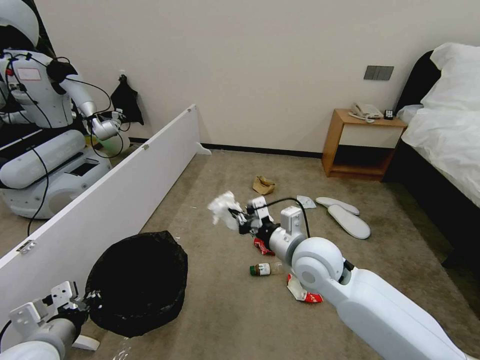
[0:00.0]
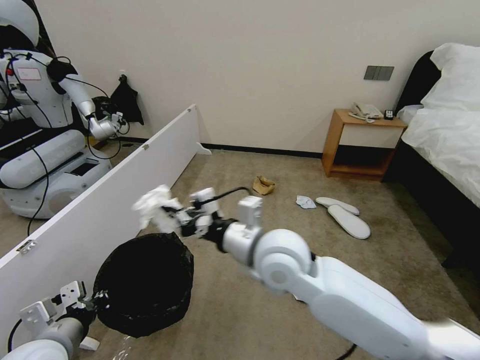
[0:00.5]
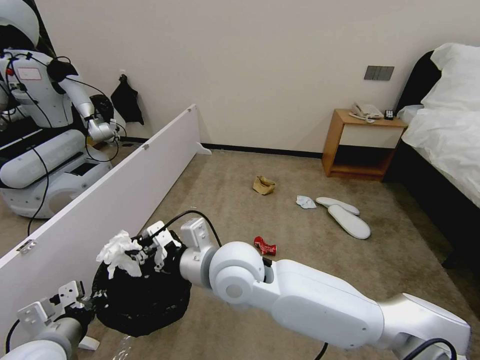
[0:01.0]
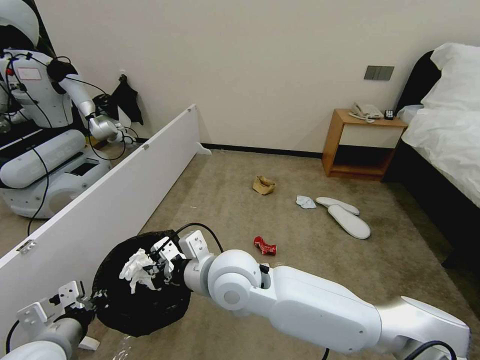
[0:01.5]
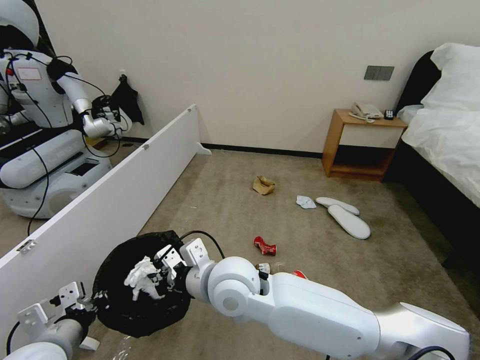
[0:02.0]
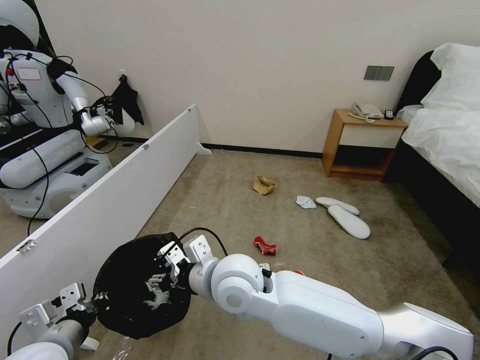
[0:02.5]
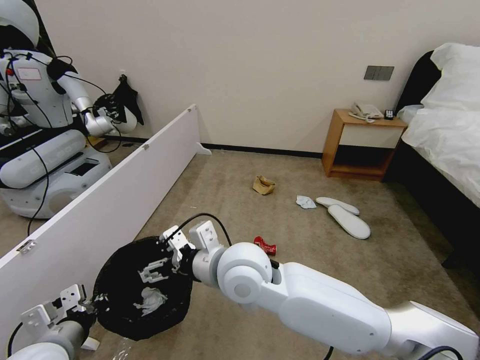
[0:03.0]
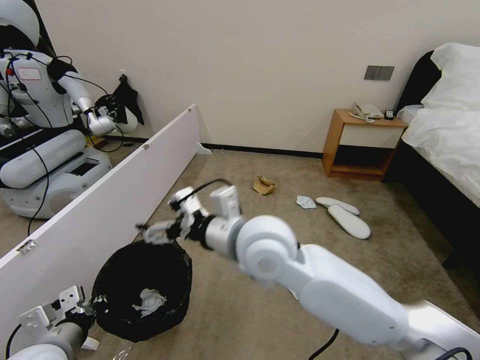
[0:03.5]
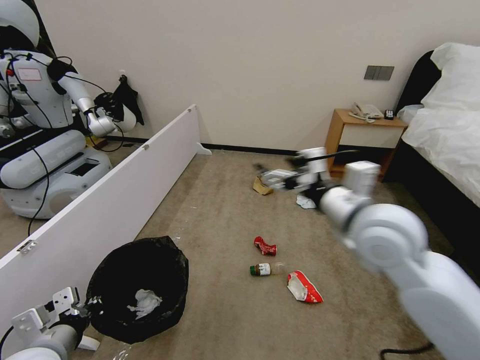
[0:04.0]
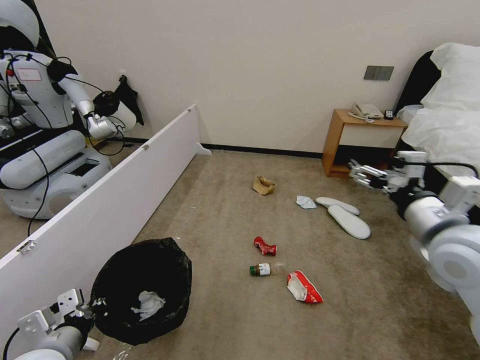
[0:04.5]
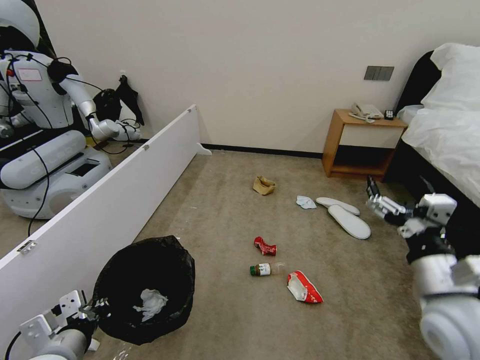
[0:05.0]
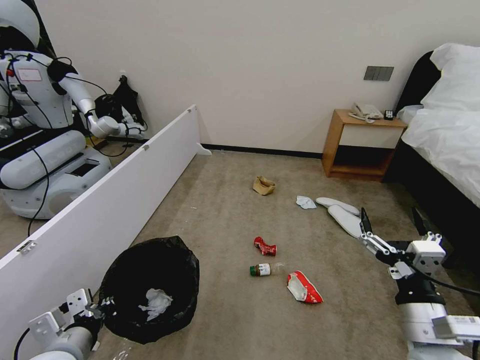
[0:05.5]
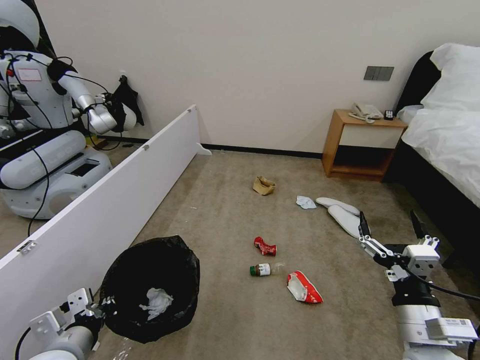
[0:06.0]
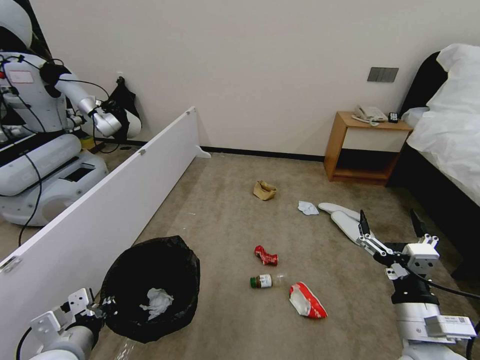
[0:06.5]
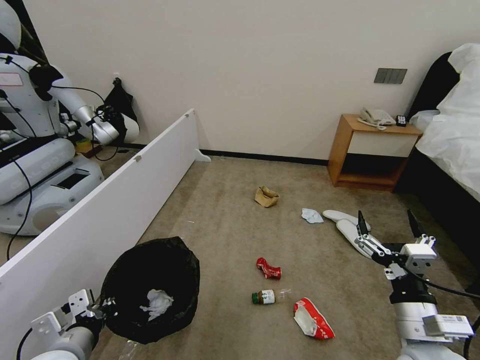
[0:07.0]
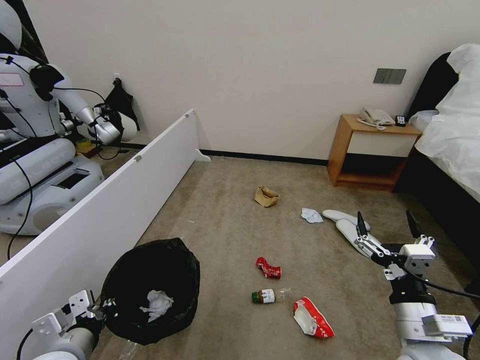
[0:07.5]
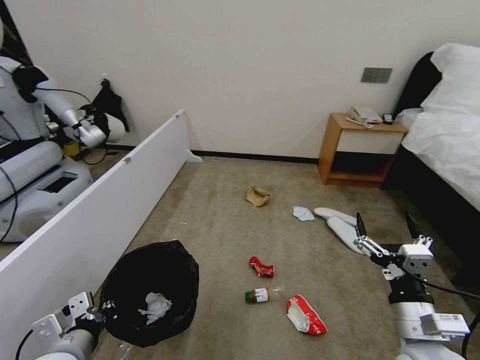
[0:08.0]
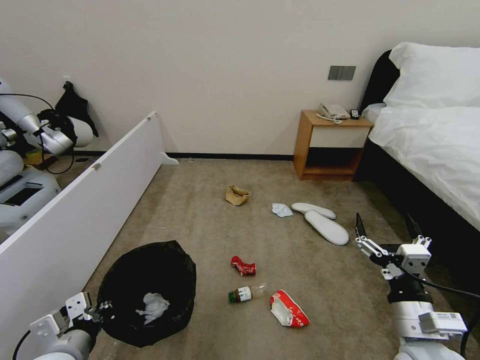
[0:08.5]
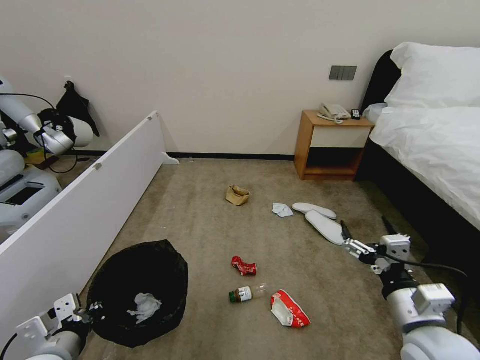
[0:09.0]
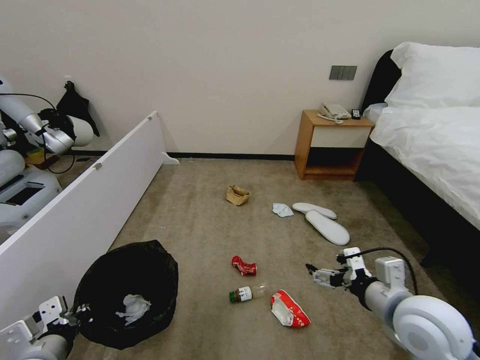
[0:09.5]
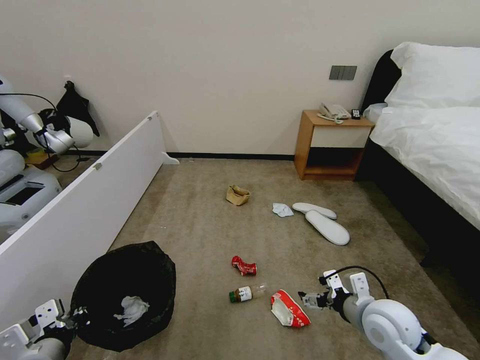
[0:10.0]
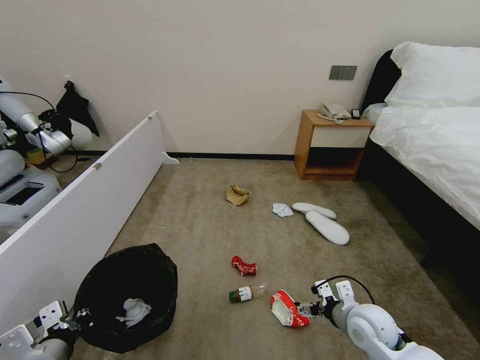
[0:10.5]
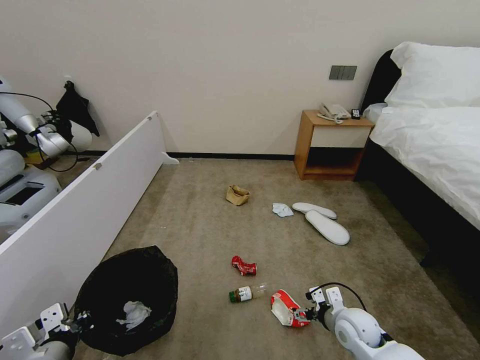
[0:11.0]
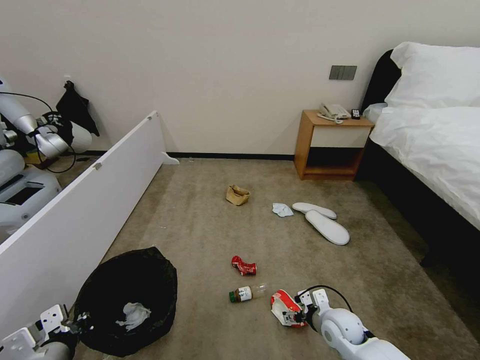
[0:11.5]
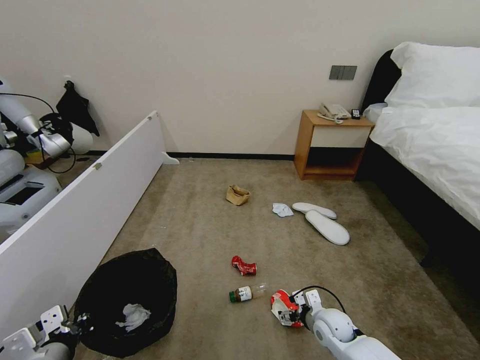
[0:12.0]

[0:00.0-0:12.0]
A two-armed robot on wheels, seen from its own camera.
Task of the whole recording: Pick up the trash bin, then pick up the garbage from the floor and place it into the trash bin.
0:00.0 to 0:02.0: The right gripper moves to the left, about 15 cm.
0:02.0 to 0:04.0: The right gripper shifts about 25 cm to the right and upward, and opens up.
0:04.0 to 0:06.0: The right gripper moves downward, backward and to the right, approximately 25 cm.
0:08.0 to 0:10.0: The right gripper heads forward, covering some 10 cm.
0:10.0 to 0:12.0: The right gripper heads downward, covering some 20 cm.

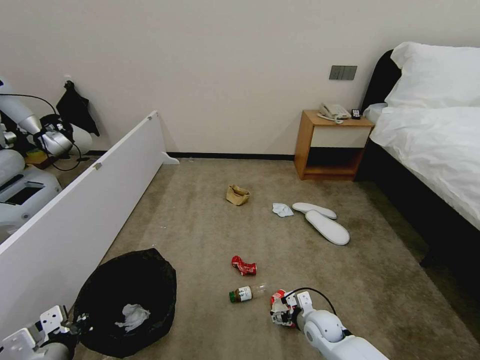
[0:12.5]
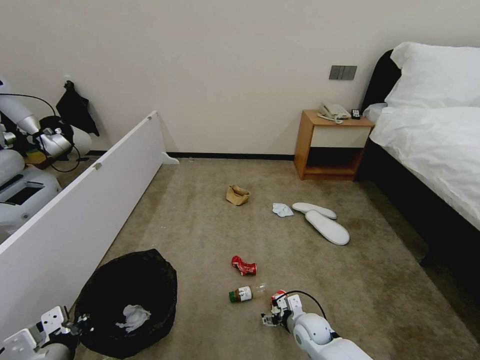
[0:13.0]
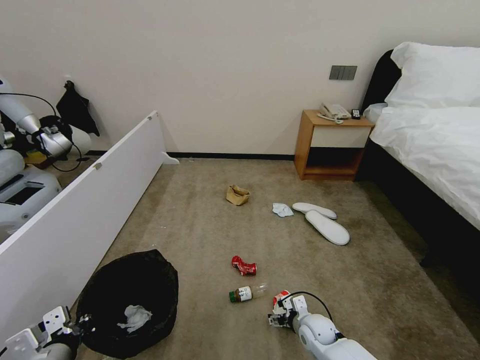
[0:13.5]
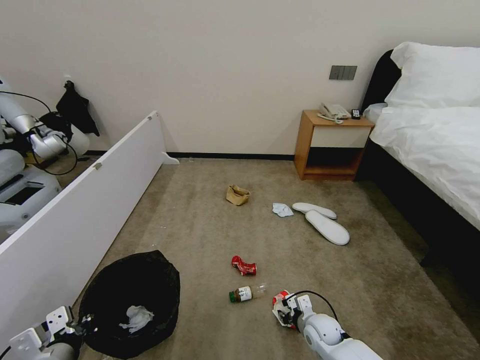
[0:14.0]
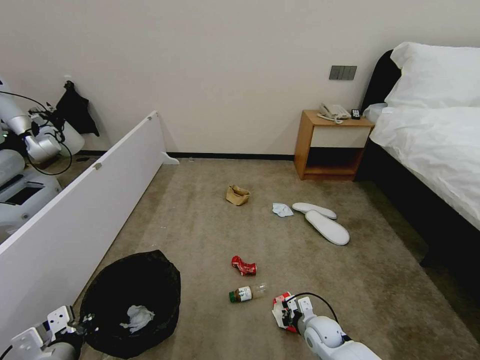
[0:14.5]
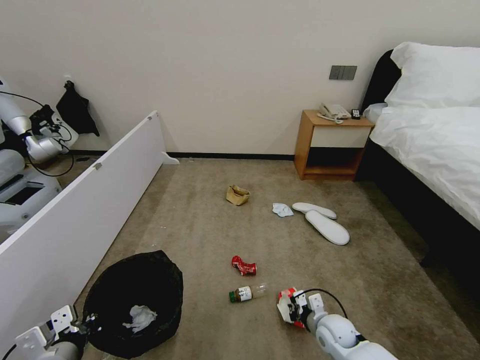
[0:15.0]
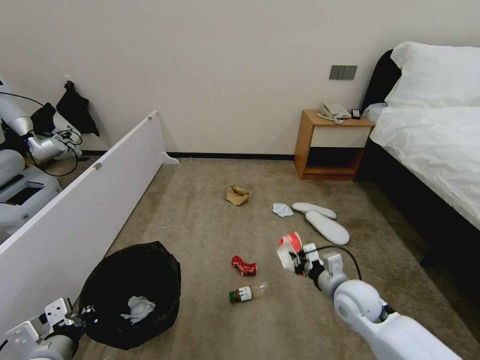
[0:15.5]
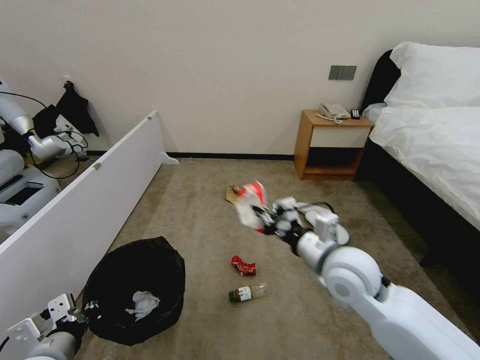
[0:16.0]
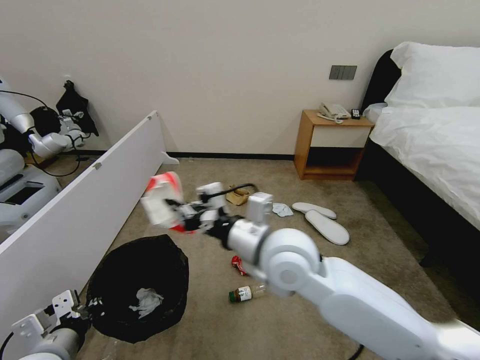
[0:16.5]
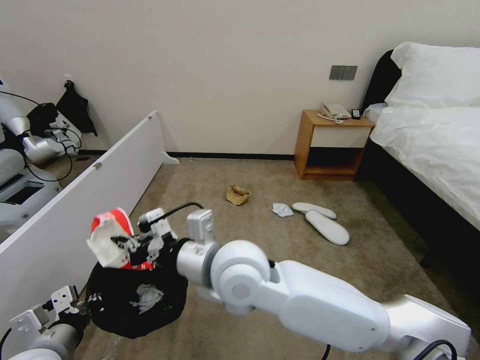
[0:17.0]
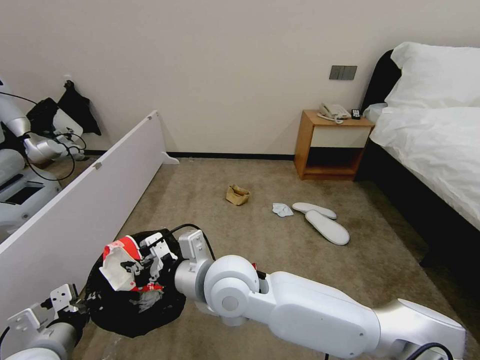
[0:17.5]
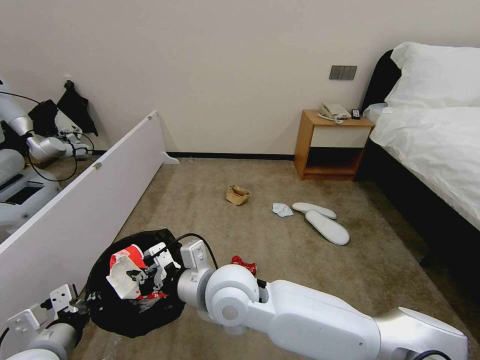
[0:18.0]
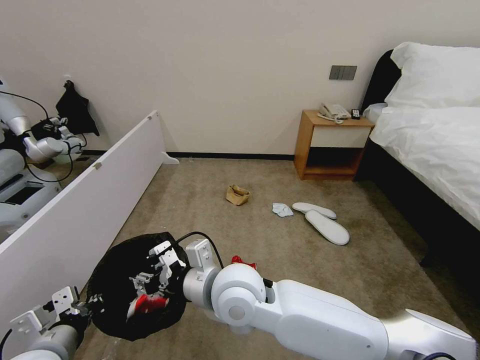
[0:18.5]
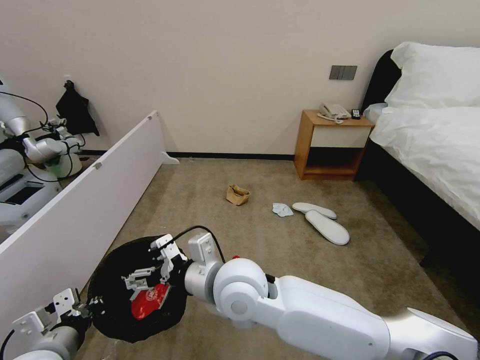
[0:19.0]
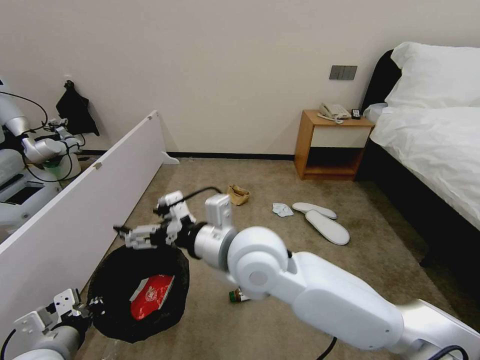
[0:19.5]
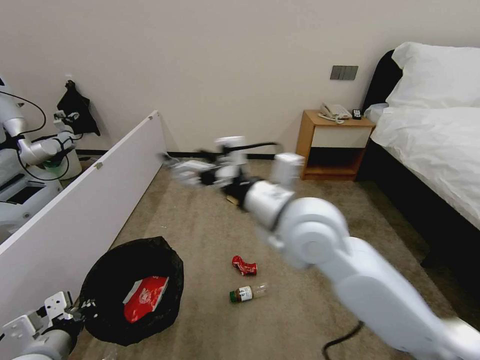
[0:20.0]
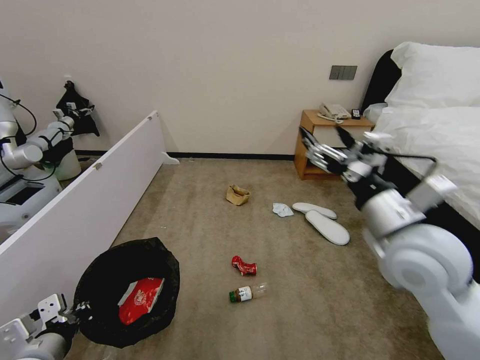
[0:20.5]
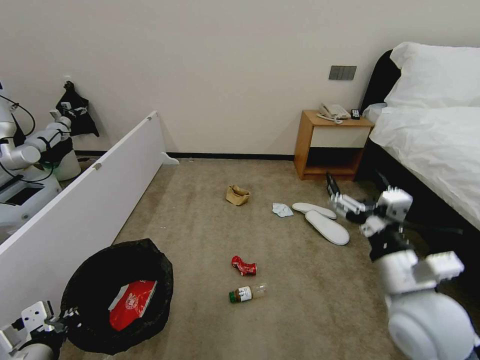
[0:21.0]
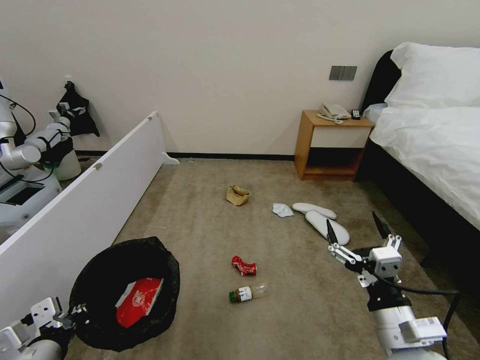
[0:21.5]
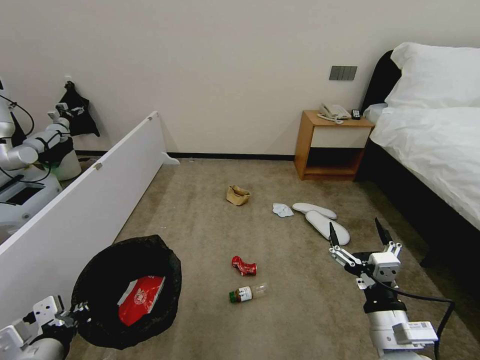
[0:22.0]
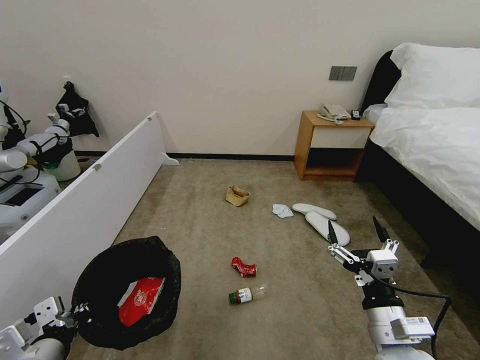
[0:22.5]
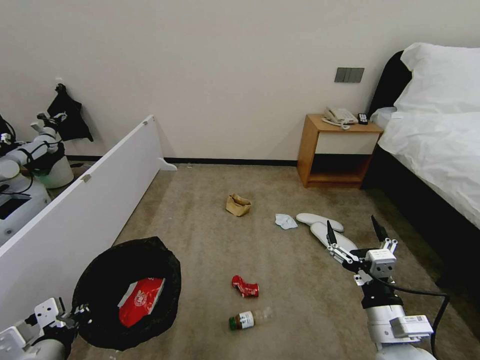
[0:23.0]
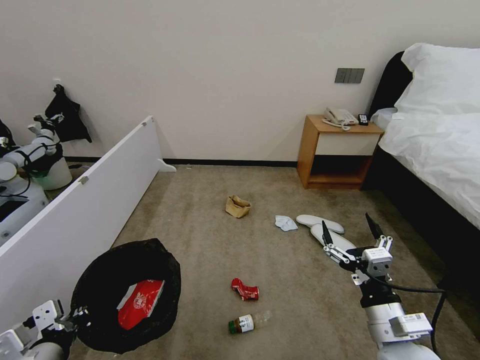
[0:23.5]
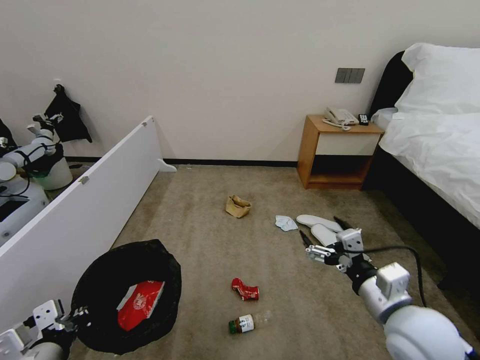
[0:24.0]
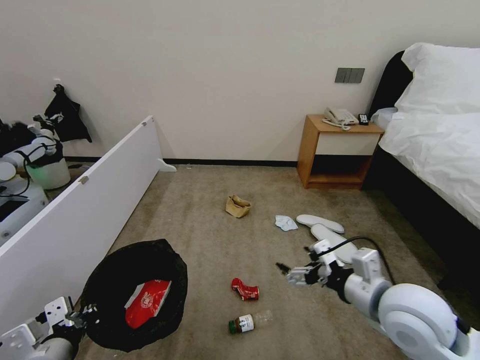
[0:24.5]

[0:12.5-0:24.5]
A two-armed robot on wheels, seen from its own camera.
Task of the whole recording: Pick up the trash bin, then pick up the garbage from the floor and place it into the trash bin.
0:12.5 to 0:14.5: The right gripper closes.
0:14.5 to 0:16.5: The right gripper shifts some 40 cm upward and to the left.
0:16.5 to 0:18.5: The right gripper heads to the left and downward, covering approximately 10 cm.
0:18.5 to 0:20.5: The right gripper moves to the right, roughly 25 cm, and opens its fingers.
0:20.5 to 0:22.5: The right gripper goes roughly 20 cm downward and backward.
0:22.5 to 0:24.5: The right gripper travels upward and forward by roughly 10 cm.

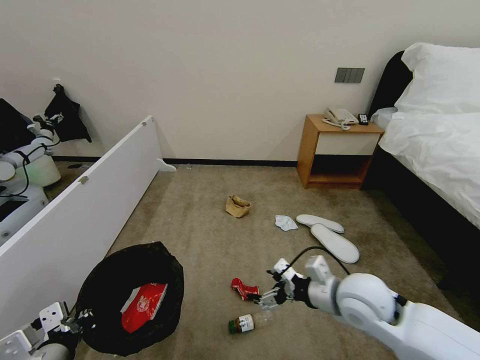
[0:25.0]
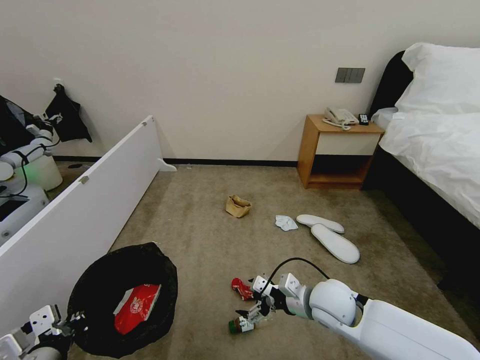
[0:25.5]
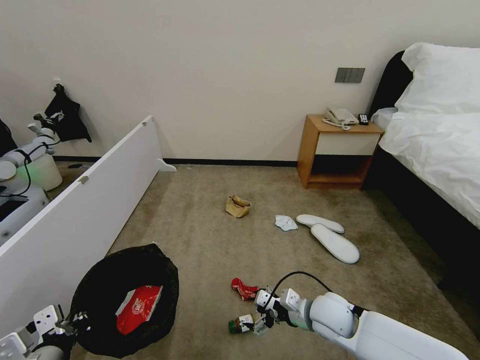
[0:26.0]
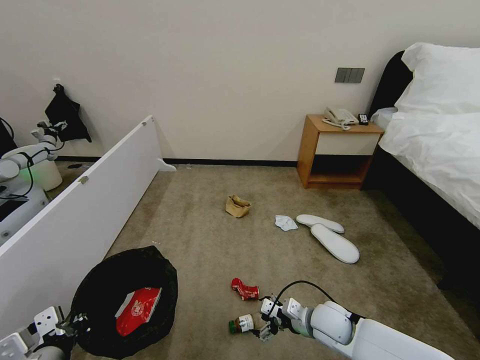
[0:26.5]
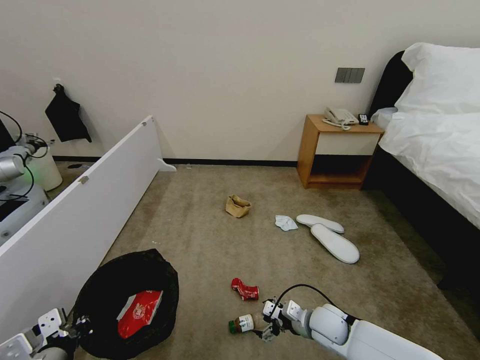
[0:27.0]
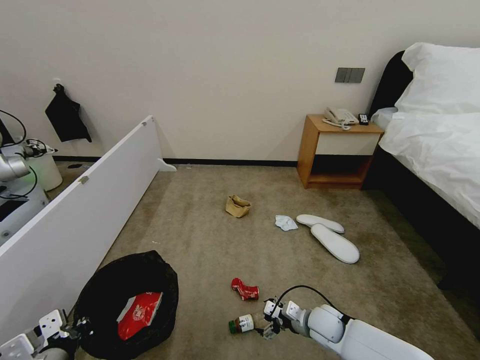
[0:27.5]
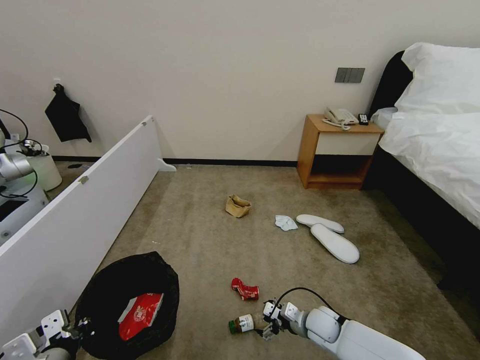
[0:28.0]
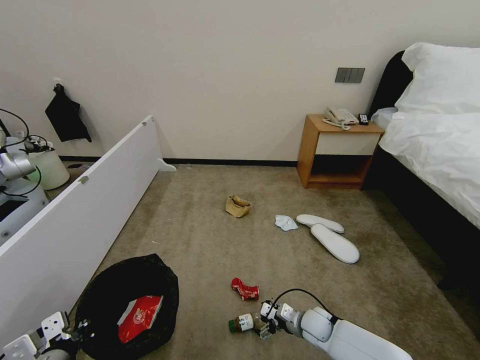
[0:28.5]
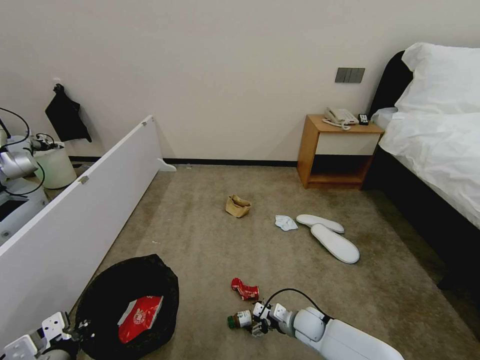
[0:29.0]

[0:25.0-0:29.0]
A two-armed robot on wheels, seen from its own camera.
Task of the whole recording: Pick up the trash bin, then pick up the garbage from the floor and place it into the trash bin.
0:25.0 to 0:27.0: The right gripper goes some 20 cm downward.
0:27.0 to 0:29.0: The right gripper travels downward by approximately 10 cm.
